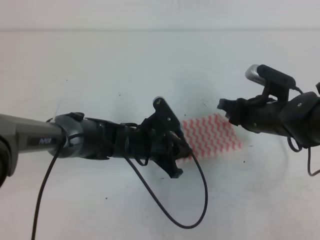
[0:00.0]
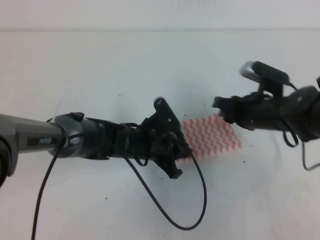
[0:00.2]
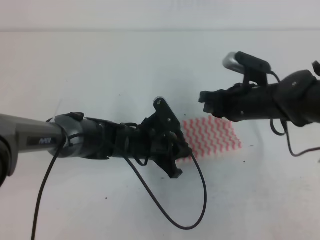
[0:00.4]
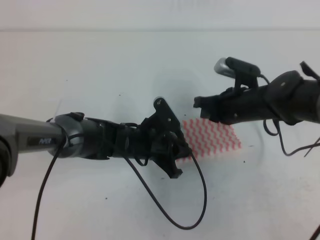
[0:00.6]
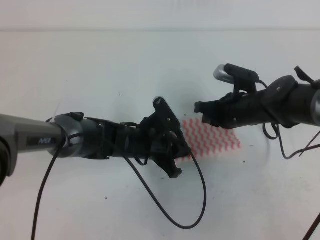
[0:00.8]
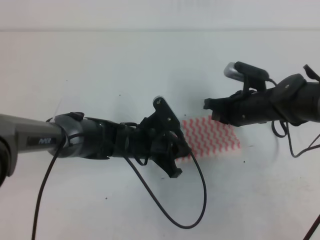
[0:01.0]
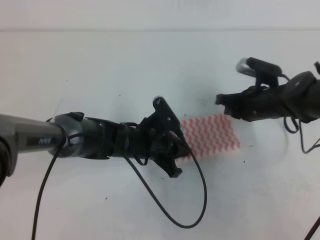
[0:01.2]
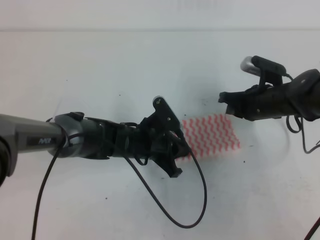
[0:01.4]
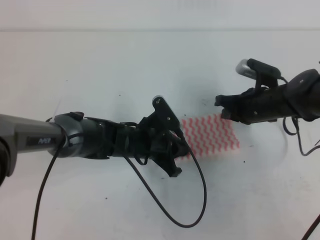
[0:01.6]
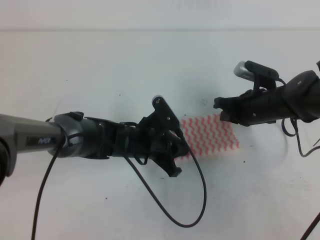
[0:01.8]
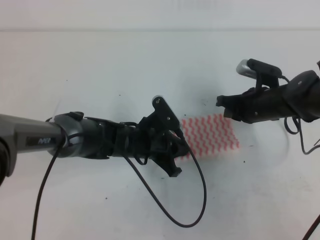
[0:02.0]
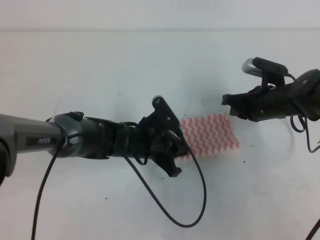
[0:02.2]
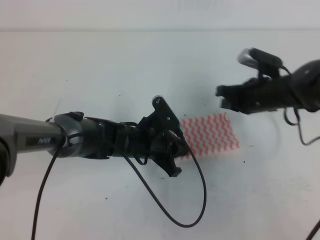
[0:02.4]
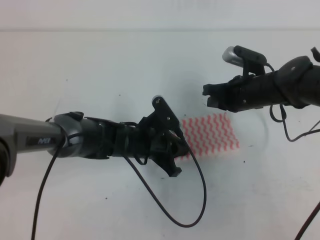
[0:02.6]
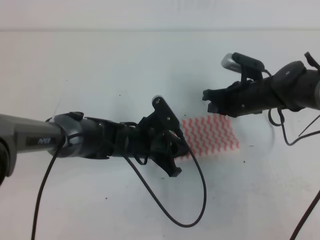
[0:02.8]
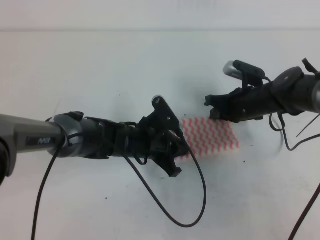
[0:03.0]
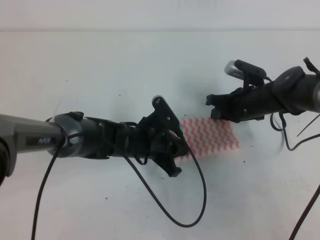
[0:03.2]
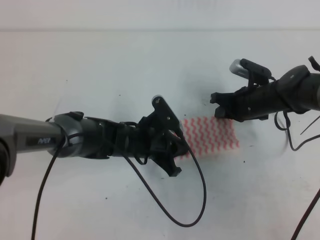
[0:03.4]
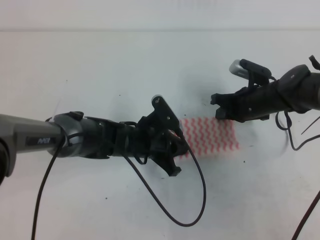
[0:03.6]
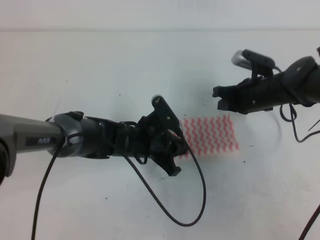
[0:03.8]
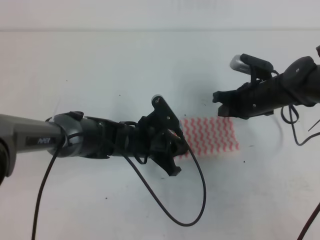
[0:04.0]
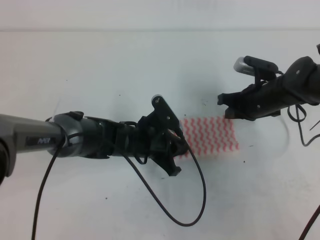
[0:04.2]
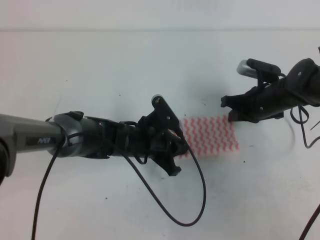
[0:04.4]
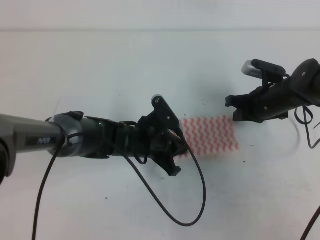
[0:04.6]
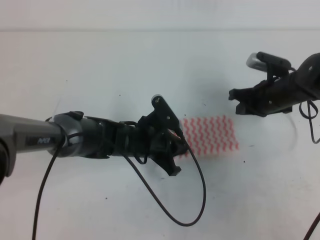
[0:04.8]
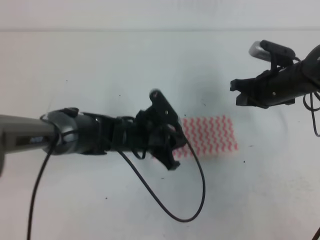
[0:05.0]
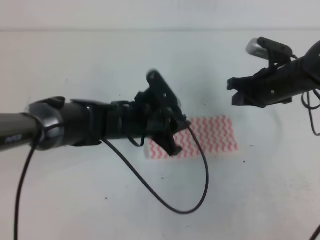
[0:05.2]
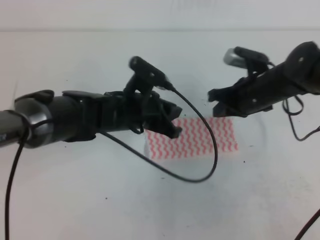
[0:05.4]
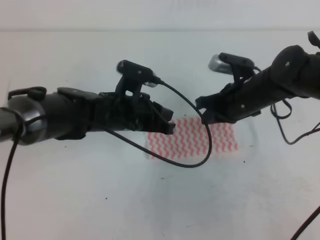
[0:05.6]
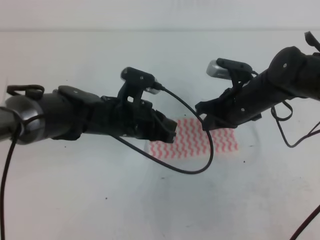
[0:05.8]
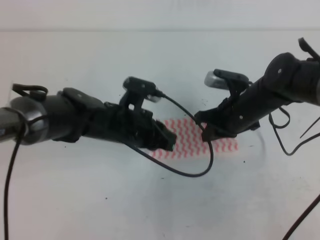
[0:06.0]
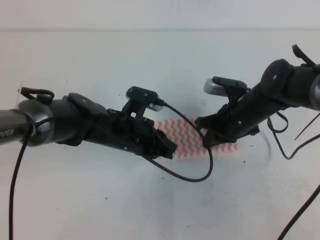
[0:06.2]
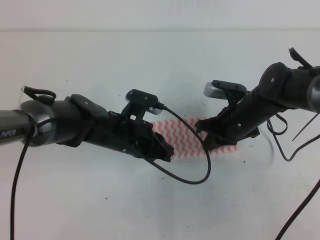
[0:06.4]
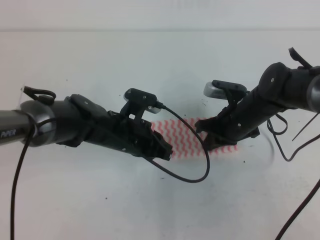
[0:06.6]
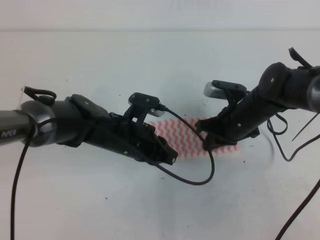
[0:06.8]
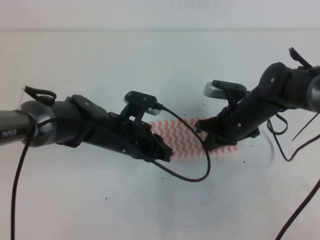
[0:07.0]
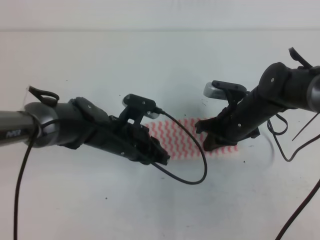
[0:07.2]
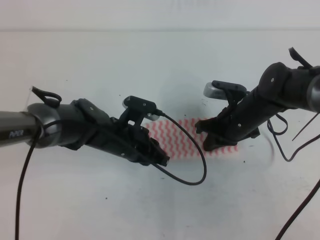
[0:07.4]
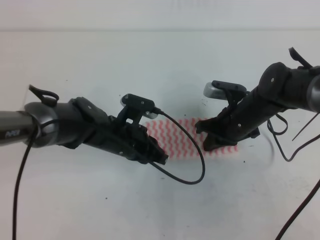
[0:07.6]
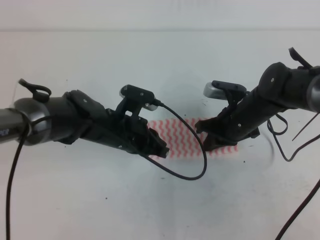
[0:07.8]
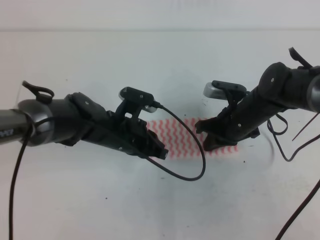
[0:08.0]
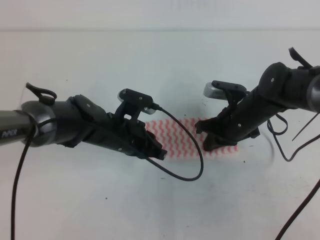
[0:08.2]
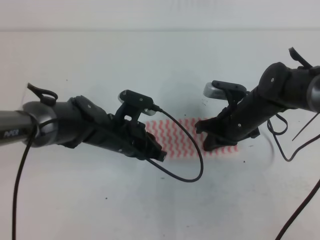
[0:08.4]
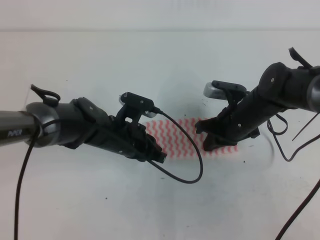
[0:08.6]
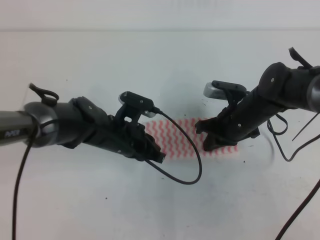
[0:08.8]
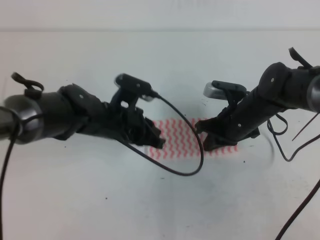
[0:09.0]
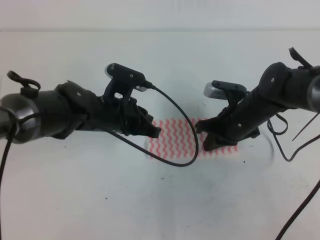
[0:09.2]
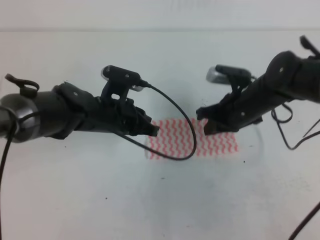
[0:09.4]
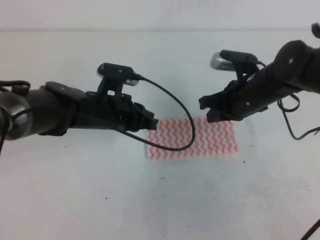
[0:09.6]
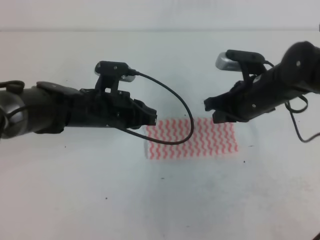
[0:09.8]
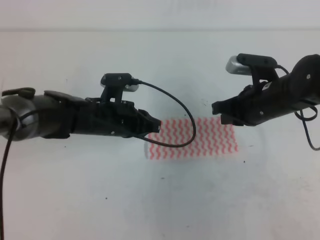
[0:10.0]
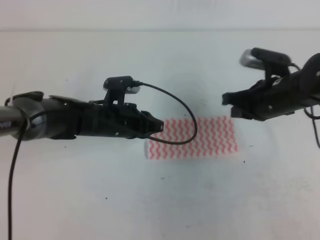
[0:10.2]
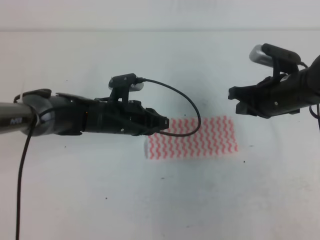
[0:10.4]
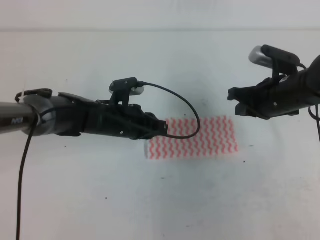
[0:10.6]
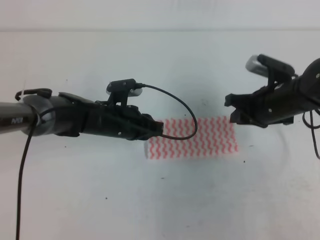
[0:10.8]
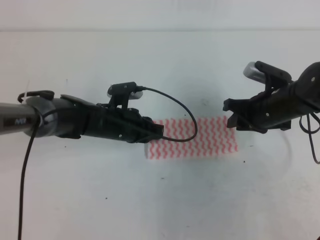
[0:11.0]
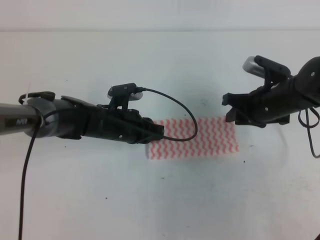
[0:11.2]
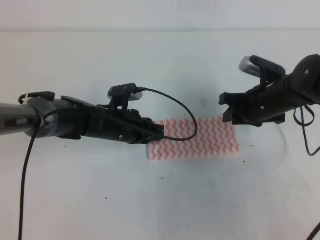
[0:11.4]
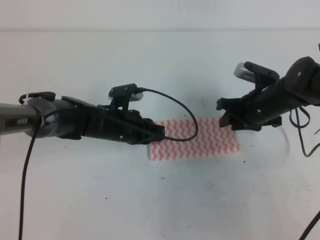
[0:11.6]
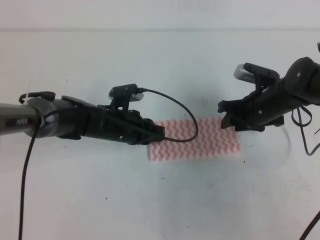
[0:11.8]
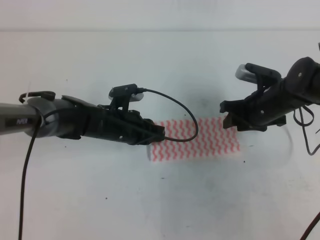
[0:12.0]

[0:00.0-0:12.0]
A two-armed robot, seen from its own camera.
Step, 0:00.0 to 0:03.0: Fold the towel from right to left with the right gripper.
Step, 0:03.2 to 0:09.0: Tidy up the towels.
0:00.0 to 0:01.6: The right gripper closes up.
0:01.6 to 0:04.4: There are only small adjustments of the grippers.
0:04.4 to 0:06.0: The right gripper heads to the left, covering roughly 5 cm. The left gripper goes about 5 cm upward.
0:06.0 to 0:09.0: There are only small adjustments of the grippers.
0:09.0 to 0:10.4: The right gripper goes some 10 cm upward and to the right.
0:10.4 to 0:12.0: The right gripper goes roughly 5 cm downward, and opens its fingers.

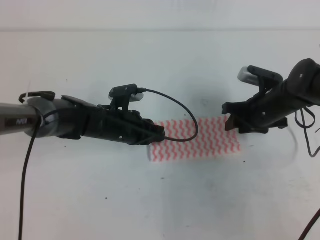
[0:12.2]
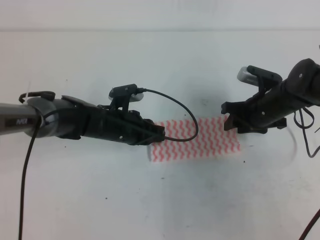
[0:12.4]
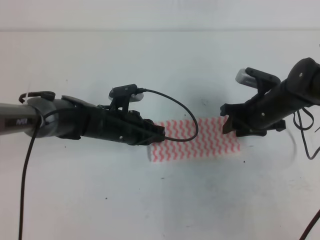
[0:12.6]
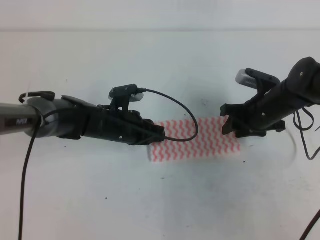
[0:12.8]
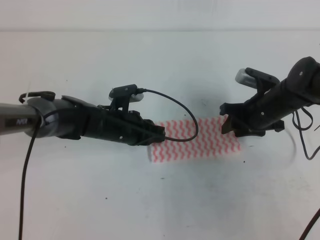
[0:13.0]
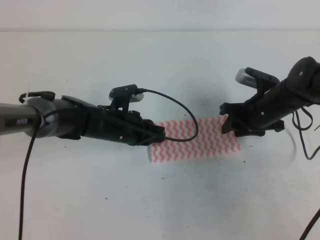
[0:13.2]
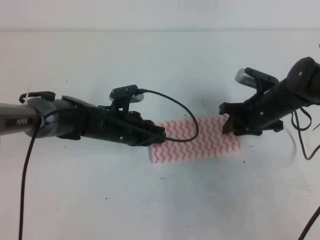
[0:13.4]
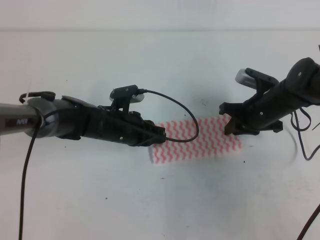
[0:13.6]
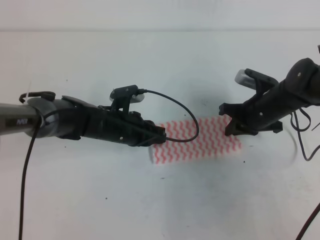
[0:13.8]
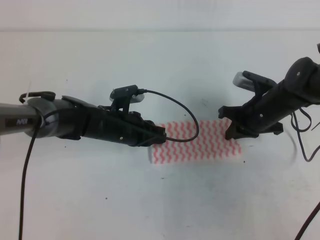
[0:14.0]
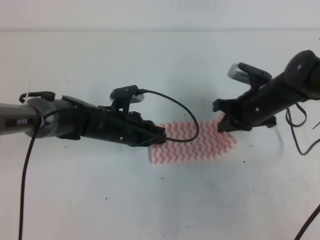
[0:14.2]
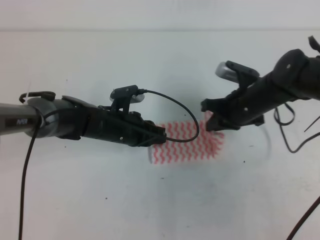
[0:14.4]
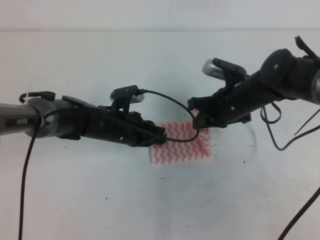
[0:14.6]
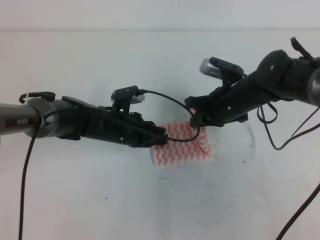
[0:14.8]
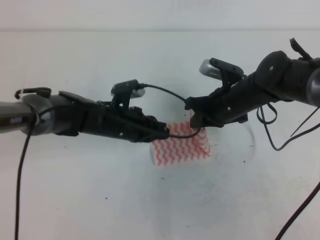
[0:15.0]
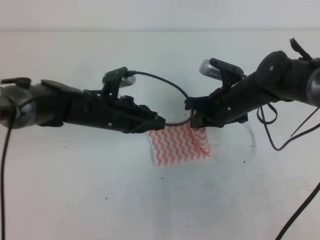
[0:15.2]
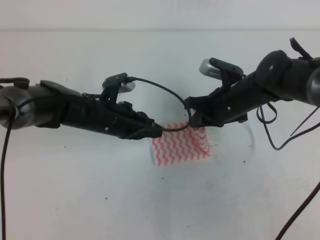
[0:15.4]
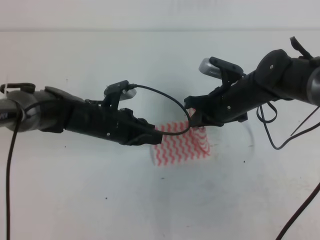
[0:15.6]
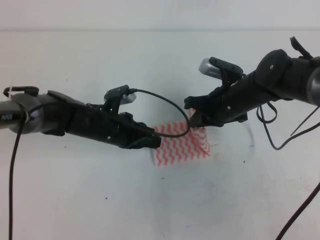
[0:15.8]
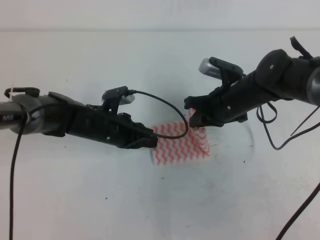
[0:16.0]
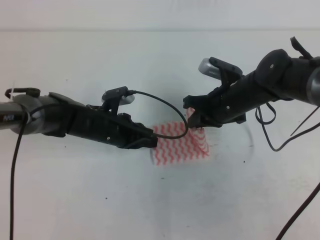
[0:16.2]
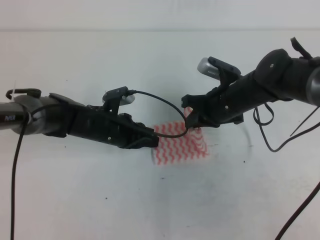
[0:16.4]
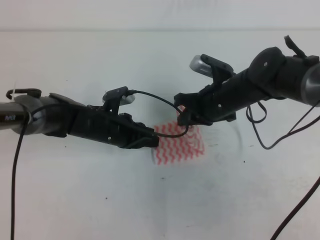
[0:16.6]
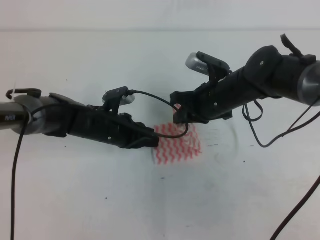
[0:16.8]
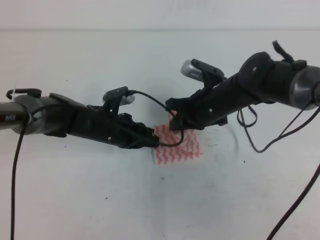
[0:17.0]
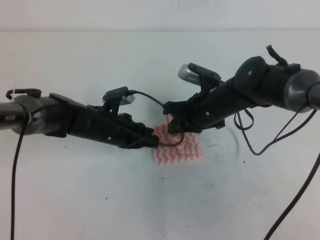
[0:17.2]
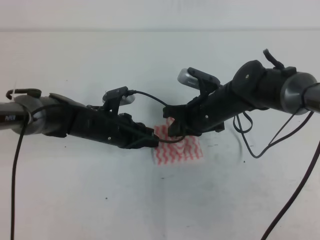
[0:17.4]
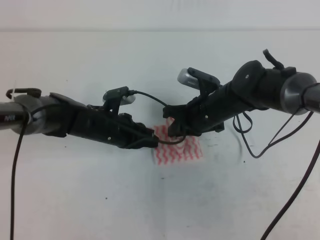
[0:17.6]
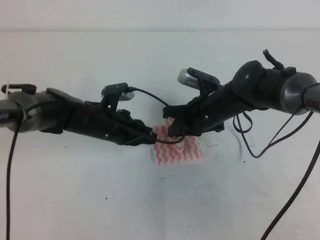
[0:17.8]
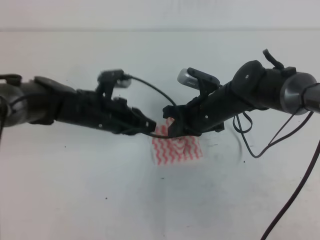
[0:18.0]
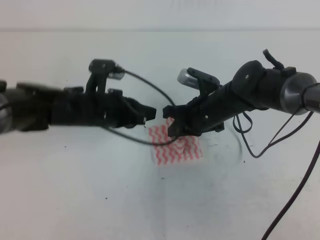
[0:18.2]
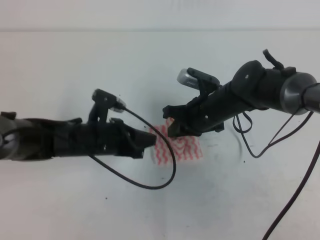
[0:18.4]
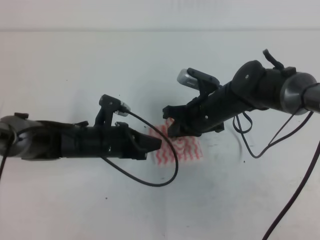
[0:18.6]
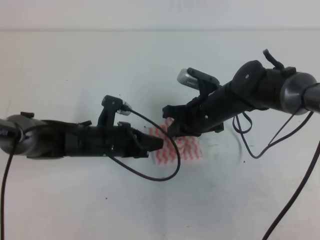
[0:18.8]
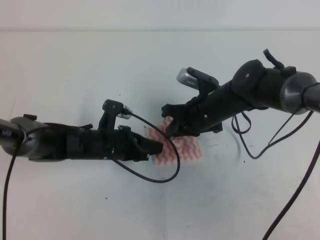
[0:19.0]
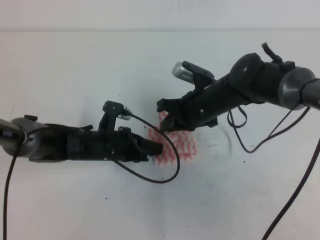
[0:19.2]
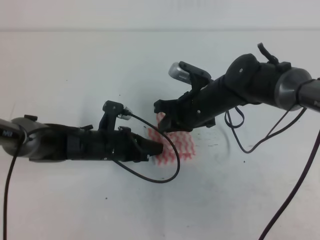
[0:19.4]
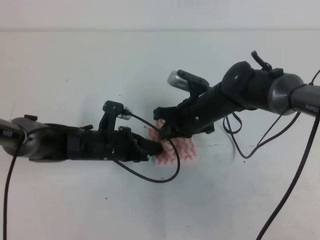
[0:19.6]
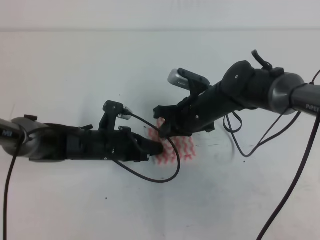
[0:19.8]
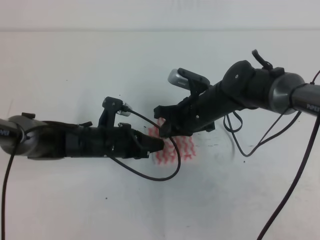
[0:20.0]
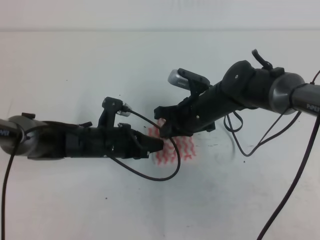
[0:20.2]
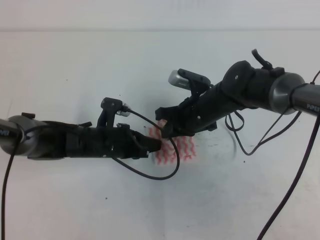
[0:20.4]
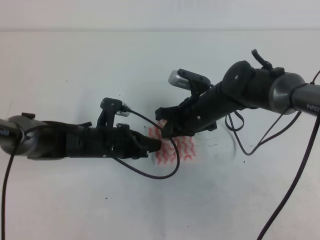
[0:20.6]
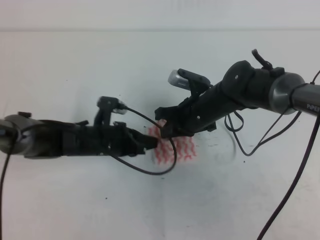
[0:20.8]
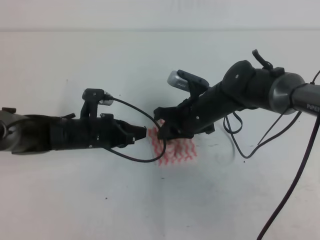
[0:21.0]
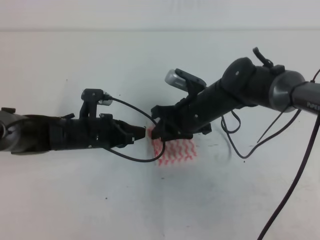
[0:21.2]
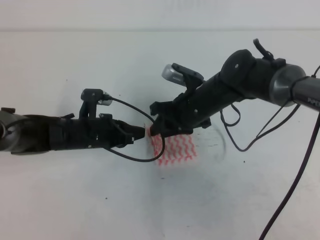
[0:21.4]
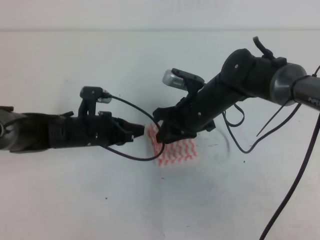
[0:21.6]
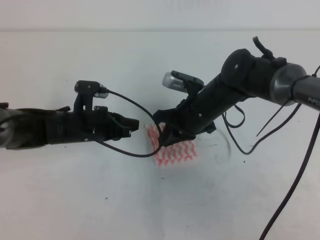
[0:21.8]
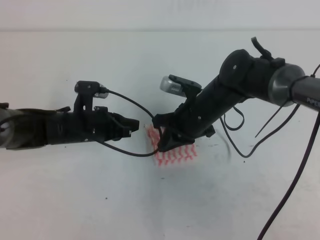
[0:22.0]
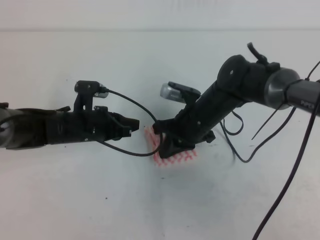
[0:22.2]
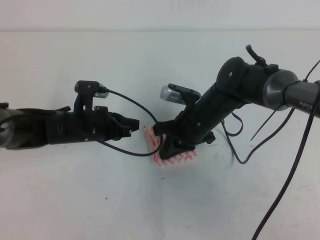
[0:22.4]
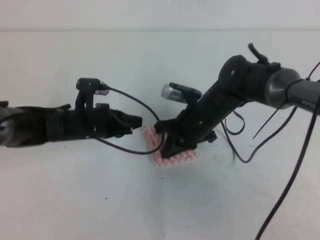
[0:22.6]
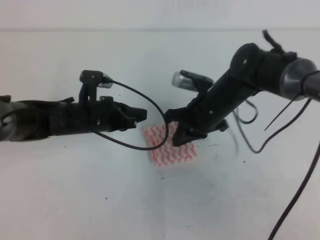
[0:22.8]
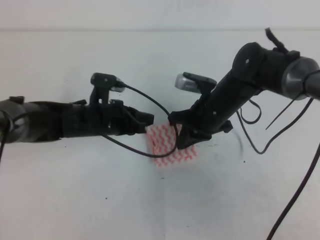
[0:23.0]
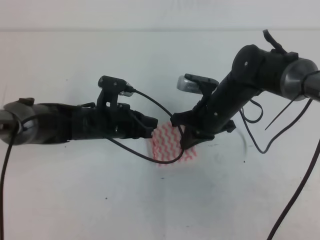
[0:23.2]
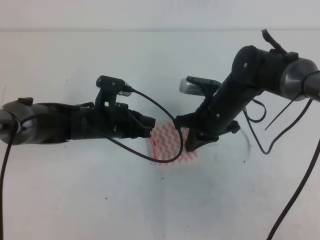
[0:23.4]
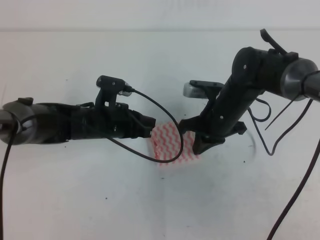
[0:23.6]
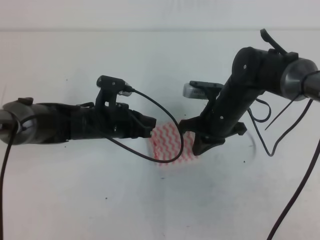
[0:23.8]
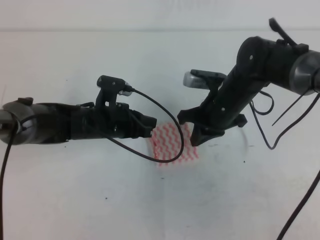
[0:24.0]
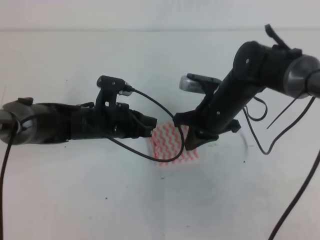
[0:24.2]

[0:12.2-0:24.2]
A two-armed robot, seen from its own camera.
0:12.2 to 0:13.8: The right gripper closes up.
0:13.8 to 0:15.2: The right gripper travels to the left and upward by approximately 10 cm.
0:15.2 to 0:16.6: The grippers move only a little.
0:16.6 to 0:18.2: The left gripper travels upward by some 5 cm.
0:18.2 to 0:19.8: The left gripper heads downward, covering about 5 cm.
0:19.8 to 0:21.2: The right gripper opens.
0:21.2 to 0:22.6: The right gripper closes its fingers.
0:22.6 to 0:24.2: The grippers stay close to where they were, moving slightly.
